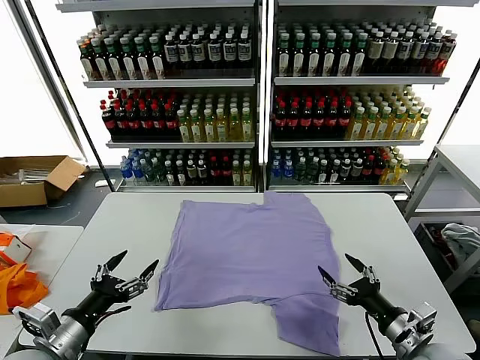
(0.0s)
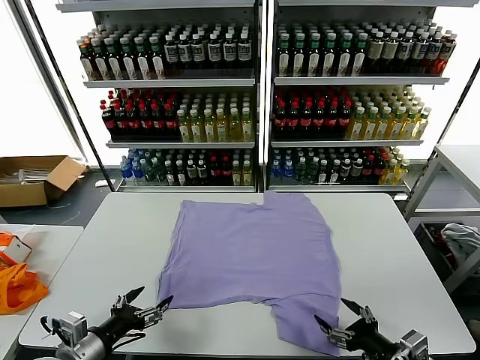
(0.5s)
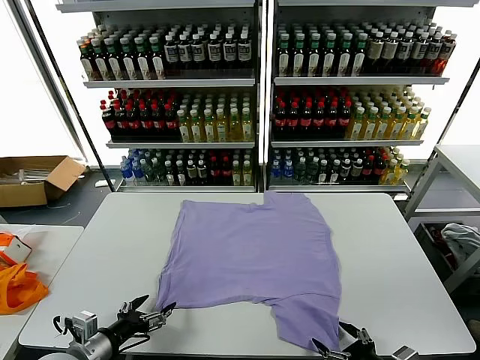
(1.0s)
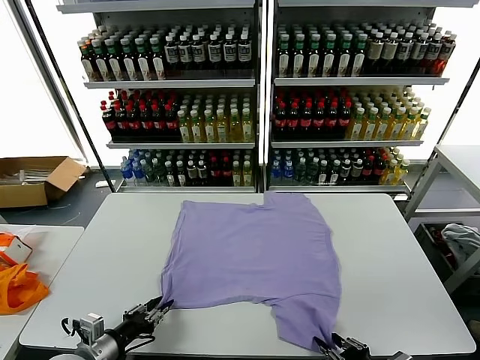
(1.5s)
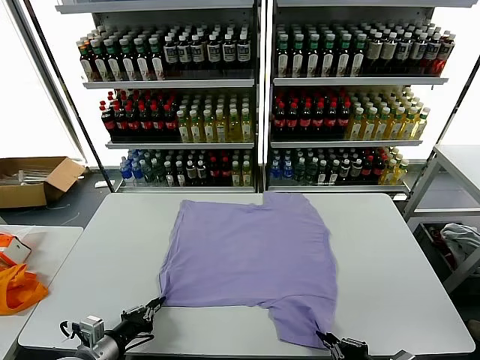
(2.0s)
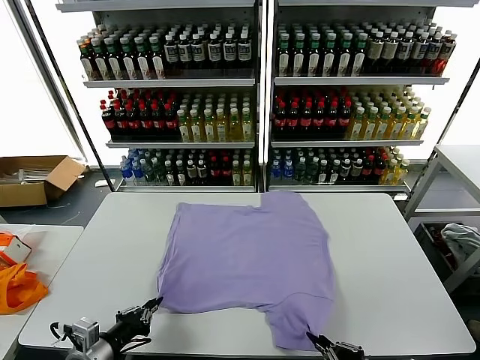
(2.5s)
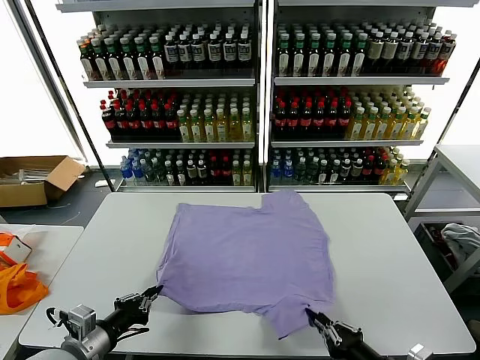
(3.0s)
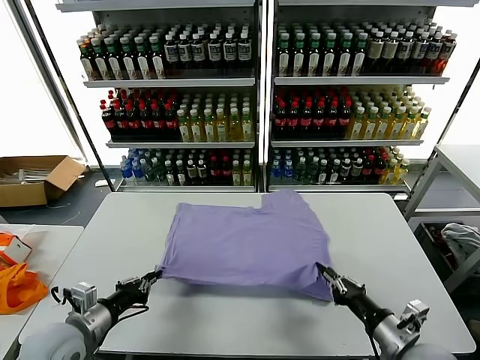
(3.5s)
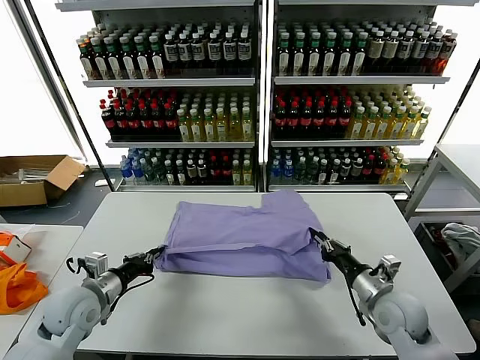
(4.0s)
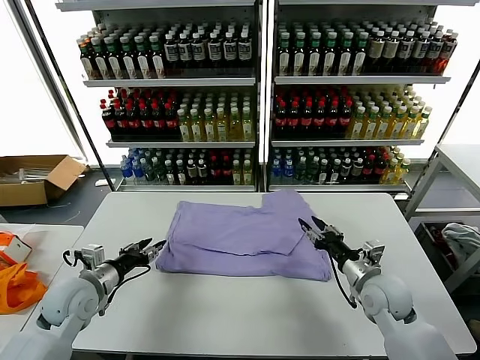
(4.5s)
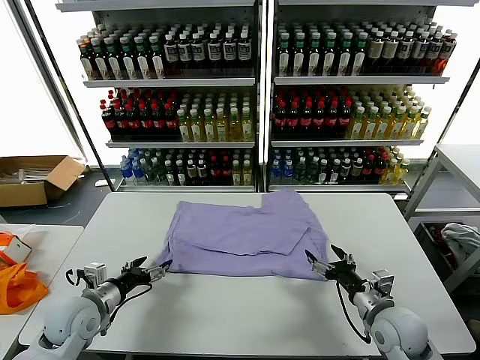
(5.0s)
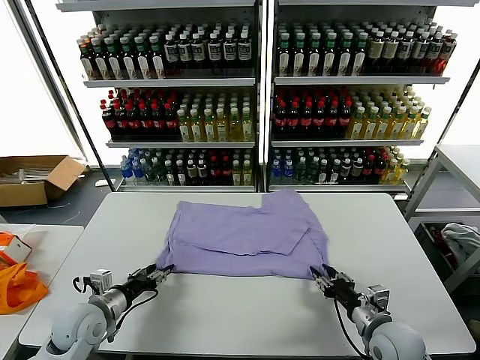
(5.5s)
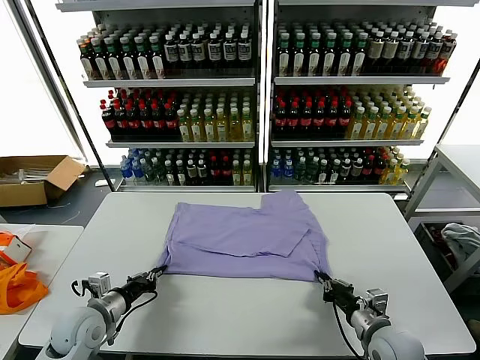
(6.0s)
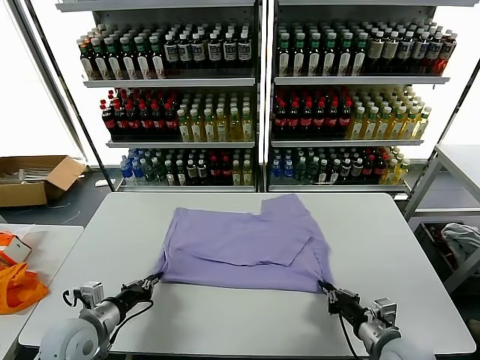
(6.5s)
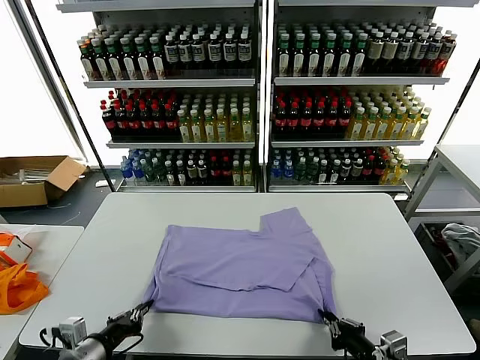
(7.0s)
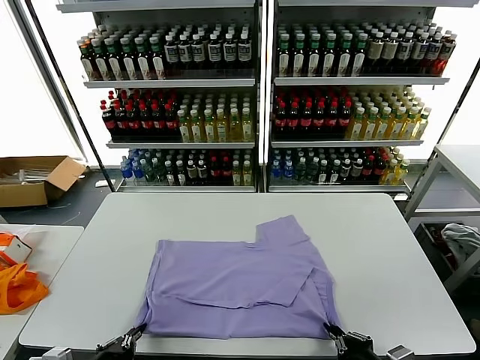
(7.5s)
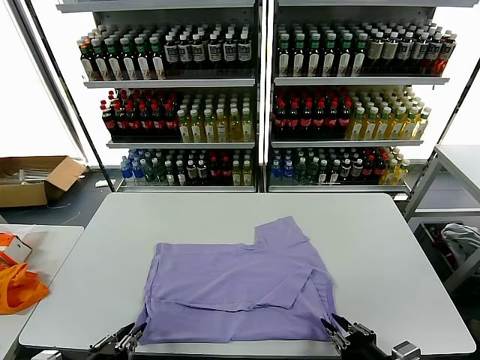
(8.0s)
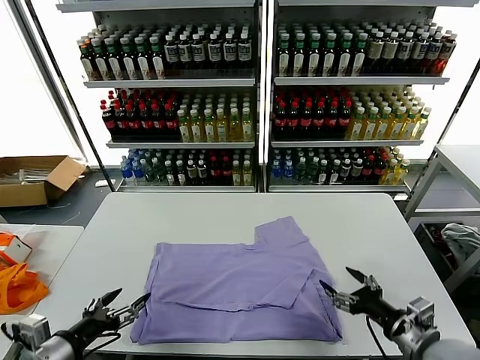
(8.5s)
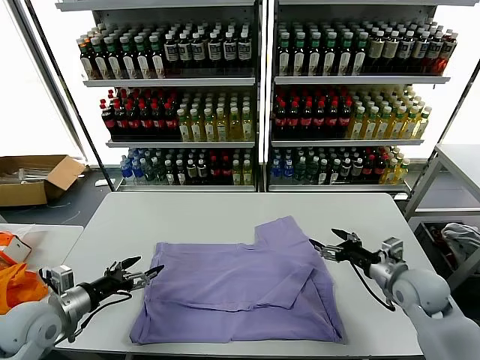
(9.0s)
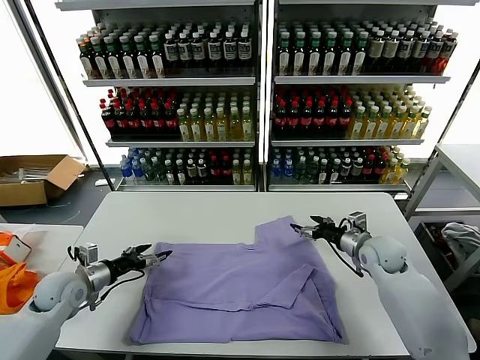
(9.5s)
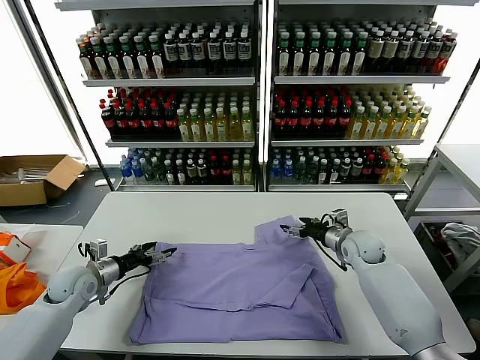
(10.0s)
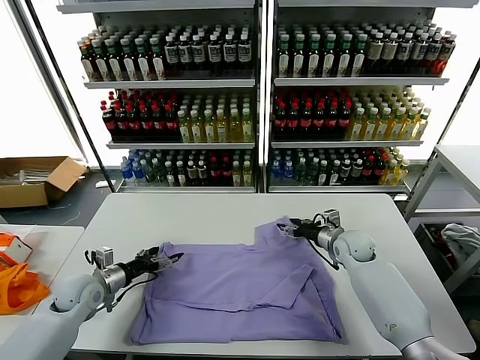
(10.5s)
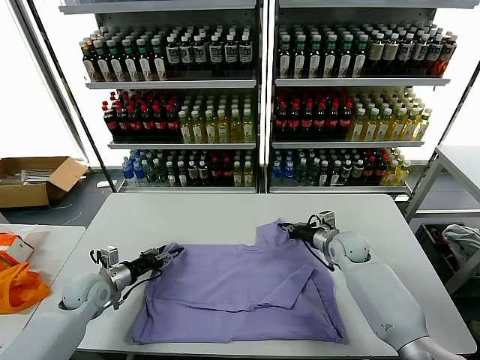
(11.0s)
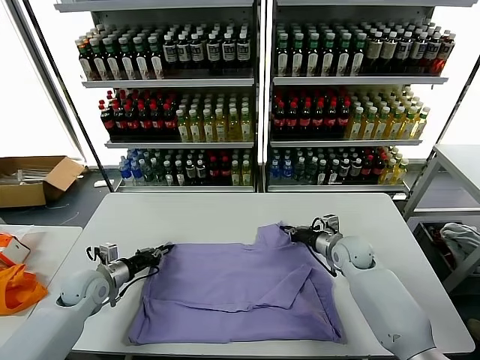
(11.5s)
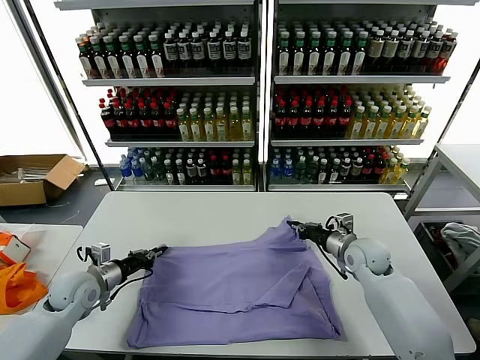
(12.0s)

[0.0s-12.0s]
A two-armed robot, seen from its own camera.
Task of the whole recording: fold and organize the clothes.
Step, 0.0s to 1.5s: use both grippers simultaneously to clamp the lower edge of the clothing fabric.
Step, 2.0s to 4.0s: use both grippers to drag the lower edge of the fabric forward and fold it over the upper edge.
Step, 4.5s to 8.0s: Drag the clothes downward with both gripper.
Step, 8.5s to 11.0s: use both grippers simultaneously to clamp the upper edge of the clothing fabric.
2.0s to 4.0s: The left gripper is displaced forward and upward by about 15 cm. The right gripper shifts roughly 20 cm forward.
4.0s to 6.0s: The right gripper moves backward, about 10 cm, and opens, then closes again, while the left gripper ends up roughly 5 cm from where it was, and opens, then closes once more.
6.0s to 8.0s: Both grippers travel together backward and upward, some 15 cm. The right gripper opens its fingers.
8.0s to 10.0s: The grippers both shift forward by approximately 30 cm. The right gripper opens its fingers, while the left gripper opens its fingers.
10.0s to 12.0s: The left gripper closes up. The right gripper goes some 5 cm backward, and closes up.

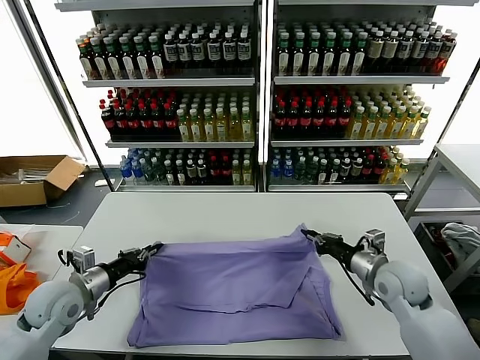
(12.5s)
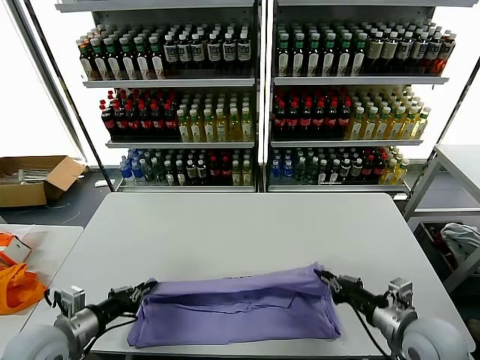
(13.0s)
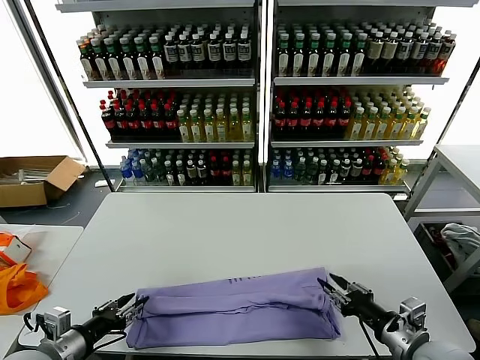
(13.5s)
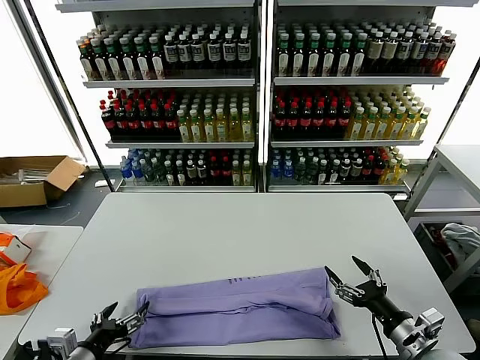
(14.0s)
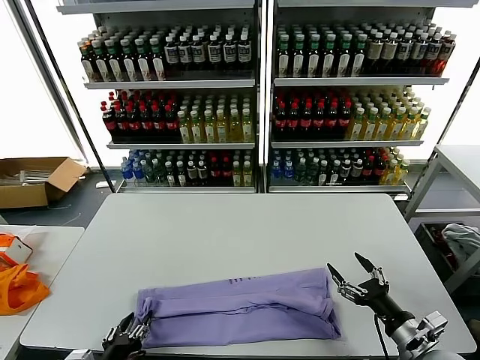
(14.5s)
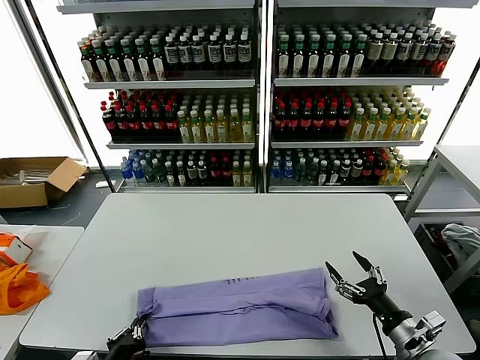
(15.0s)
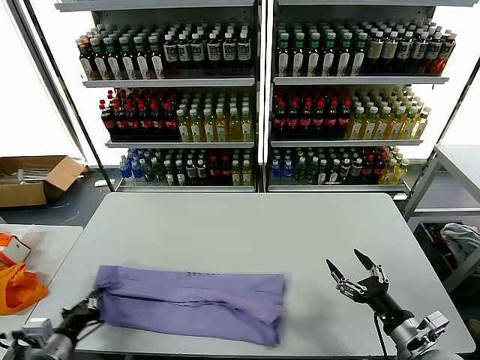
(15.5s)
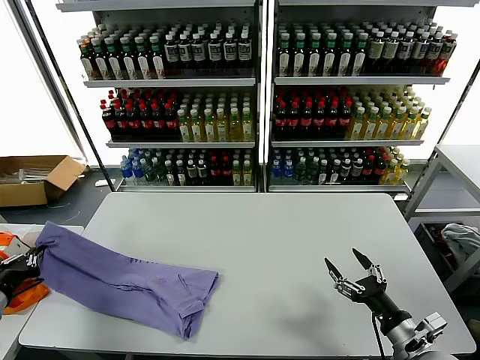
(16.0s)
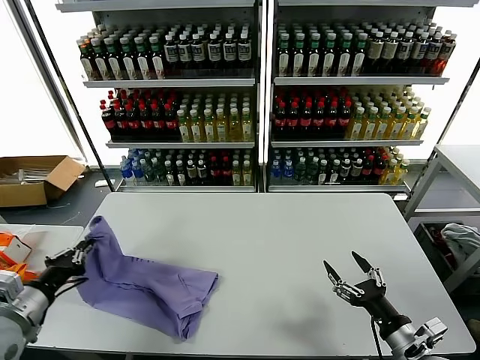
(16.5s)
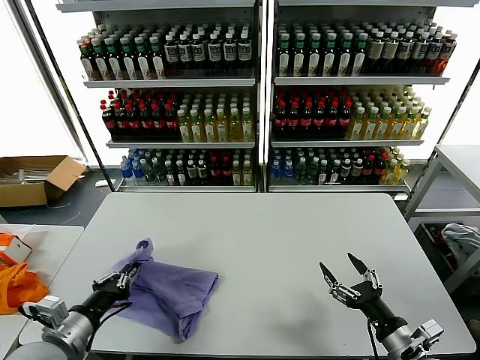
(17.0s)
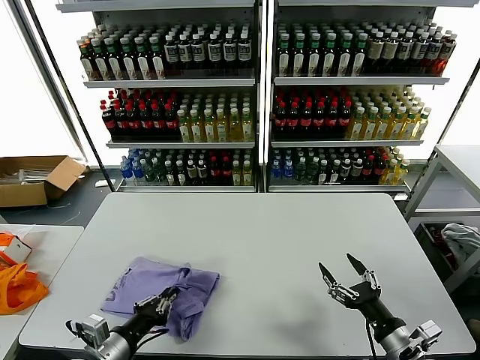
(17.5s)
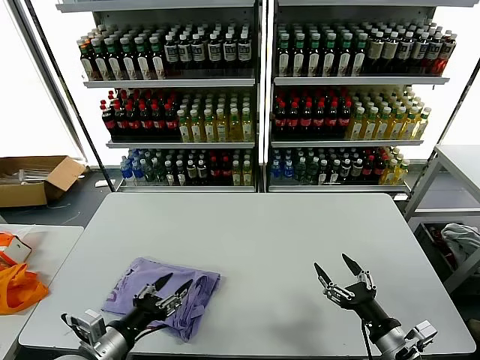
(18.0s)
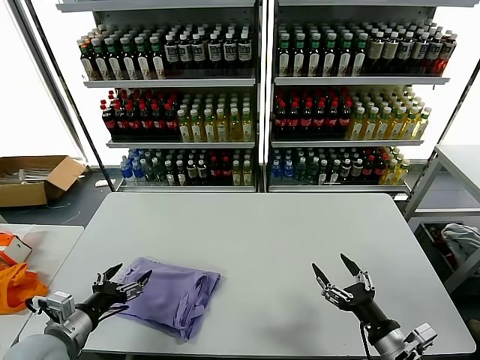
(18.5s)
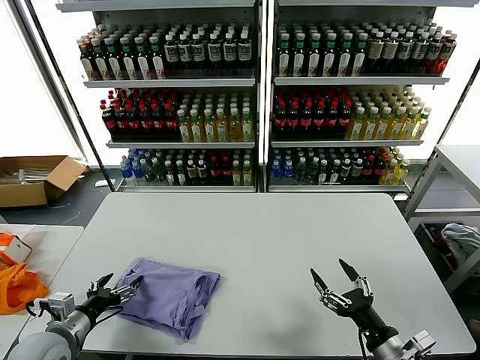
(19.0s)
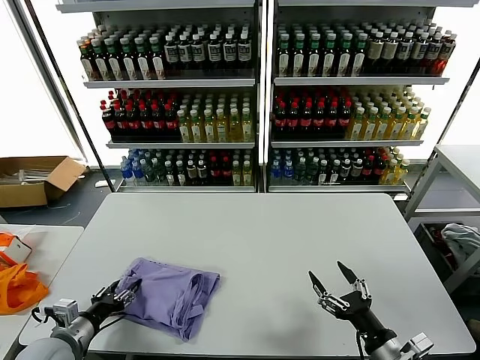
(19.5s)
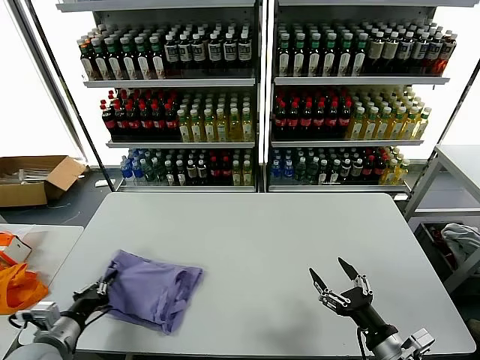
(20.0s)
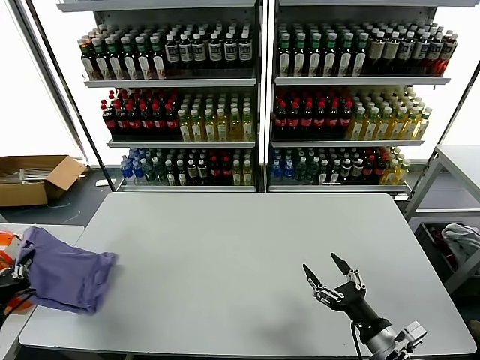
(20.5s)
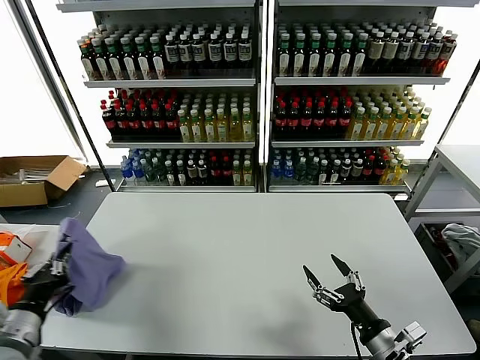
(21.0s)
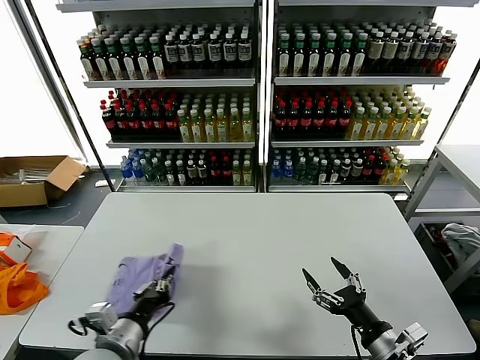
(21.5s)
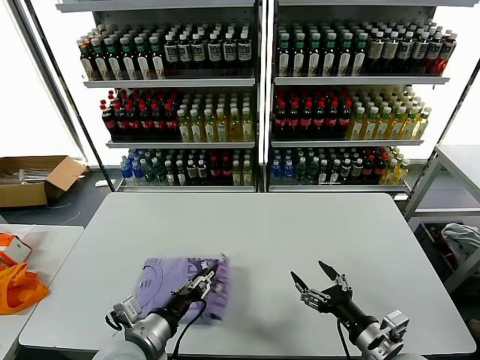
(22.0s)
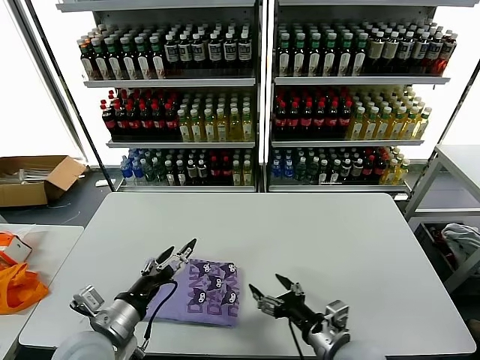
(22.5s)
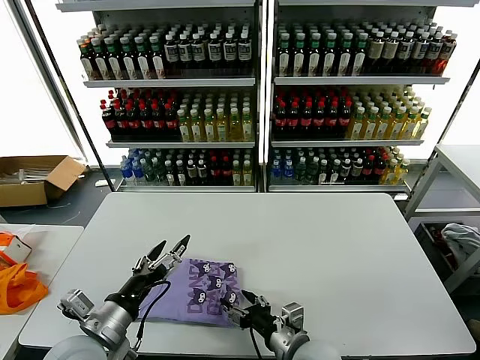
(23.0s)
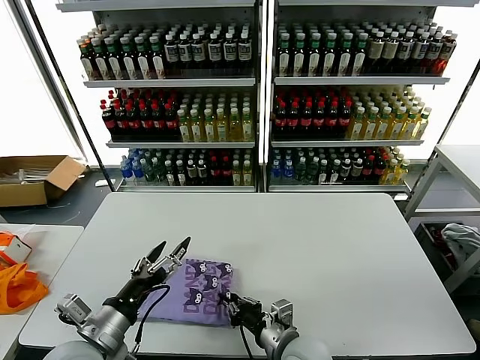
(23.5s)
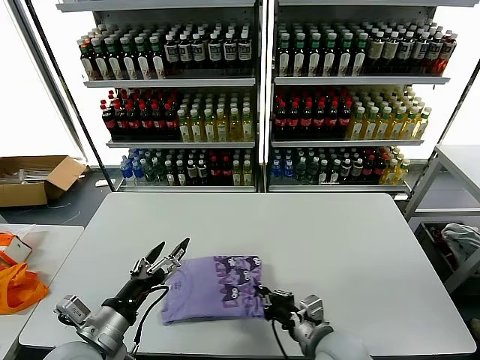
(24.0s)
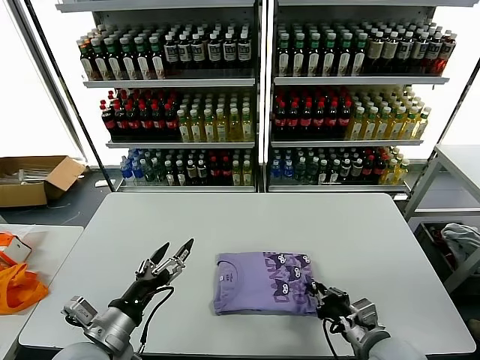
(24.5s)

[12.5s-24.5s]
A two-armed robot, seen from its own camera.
Task of the whole recording: fold and organize the clothes.
Step, 14.0s to 15.0s: use the left gripper to clamp the left edge of the fabric.
Step, 15.5s to 17.5s: use the left gripper to drag the left edge of the fabric to the left and folds it over the right edge.
Step, 18.0s to 21.5s: Flip the folded clothes over with left gripper.
12.5s to 14.5s: The right gripper is displaced backward by about 15 cm, and opens. The left gripper shifts approximately 20 cm backward and to the right, and opens its fingers.
14.5s to 16.5s: The left gripper goes approximately 20 cm to the left, upward and forward, and closes.
16.5s to 18.5s: The left gripper goes roughly 10 cm to the right and downward, and opens up.
18.5s to 20.5s: The left gripper goes approximately 10 cm to the left, and closes up.
20.5s to 22.5s: The right gripper shifts roughly 10 cm to the left, while the left gripper travels to the right by about 20 cm, and opens up.
22.5s to 24.5s: The right gripper shifts about 5 cm to the right, and closes.

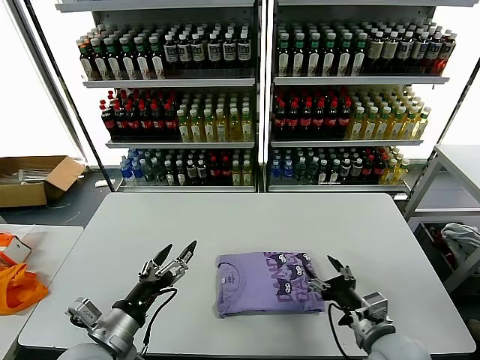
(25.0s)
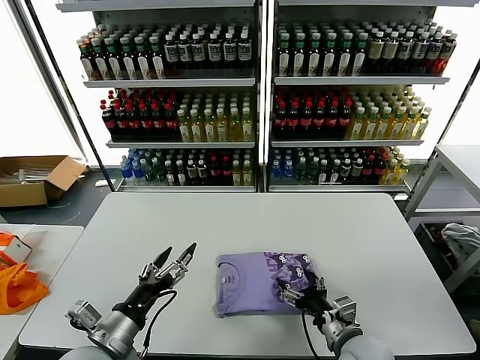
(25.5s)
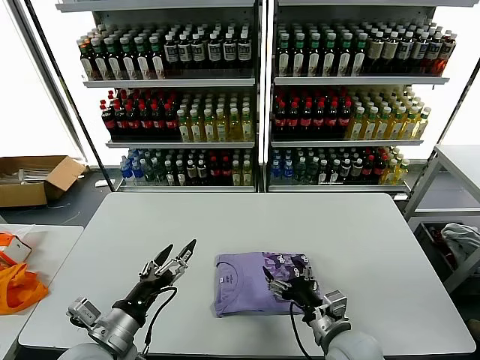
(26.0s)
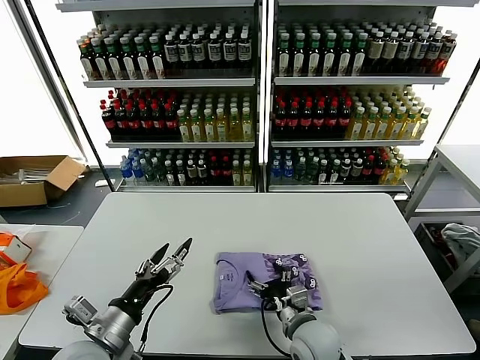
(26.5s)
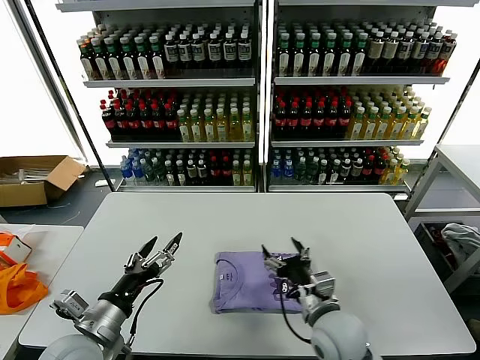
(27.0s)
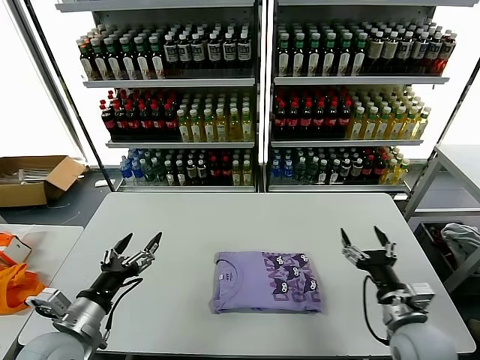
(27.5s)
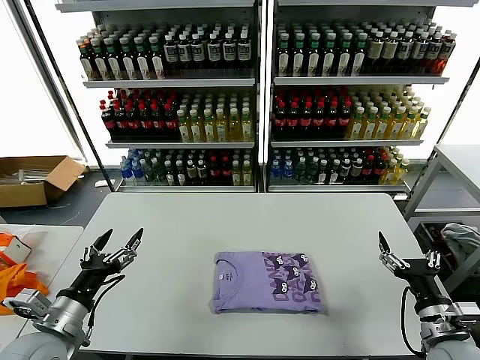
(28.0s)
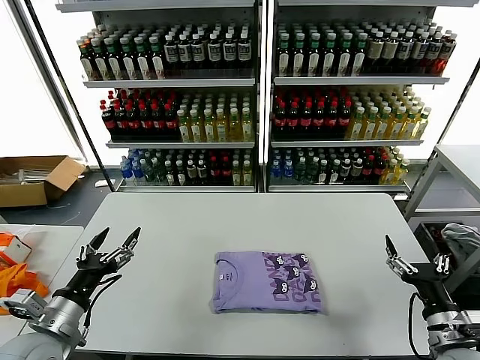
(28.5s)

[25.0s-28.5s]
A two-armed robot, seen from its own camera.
Task of the whole recording: fold and organize the clothes.
25.0s to 27.0s: The right gripper is displaced to the left by roughly 10 cm.
27.0s to 28.5s: The right gripper shifts roughly 20 cm to the right; the left gripper moves to the left, some 5 cm.
